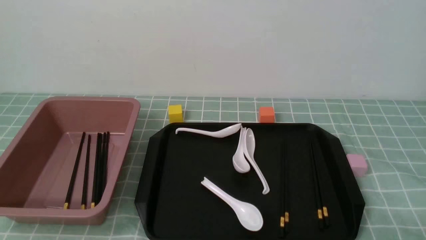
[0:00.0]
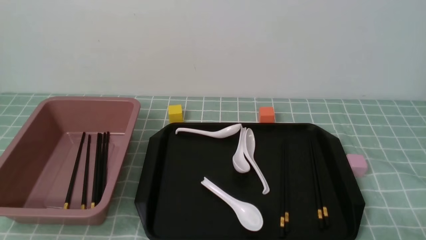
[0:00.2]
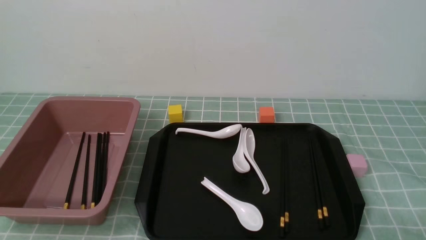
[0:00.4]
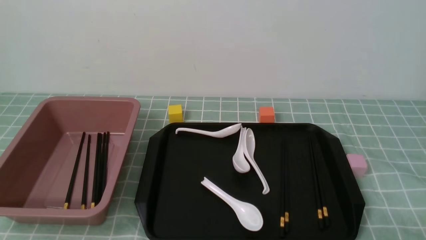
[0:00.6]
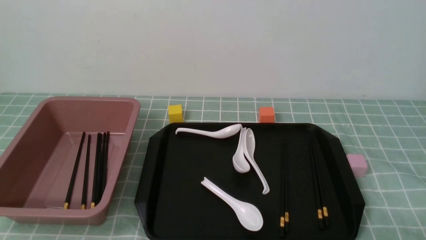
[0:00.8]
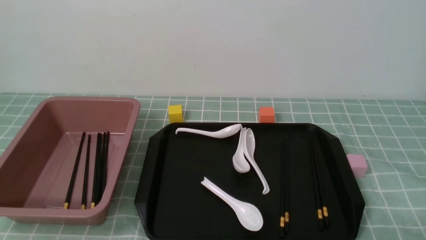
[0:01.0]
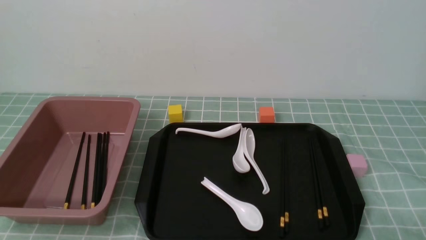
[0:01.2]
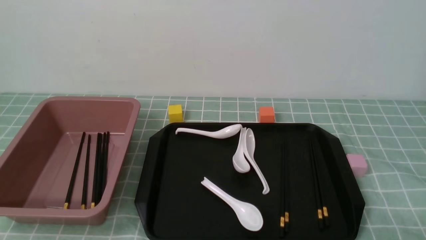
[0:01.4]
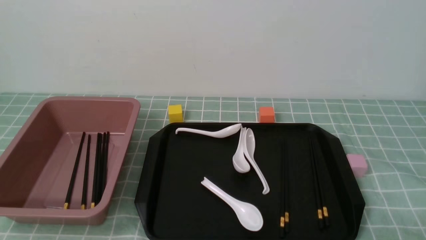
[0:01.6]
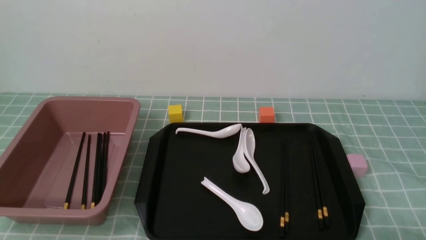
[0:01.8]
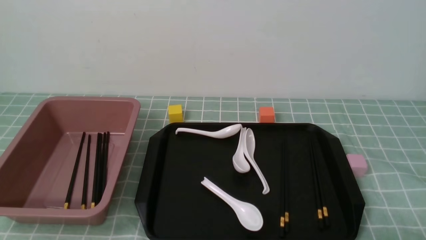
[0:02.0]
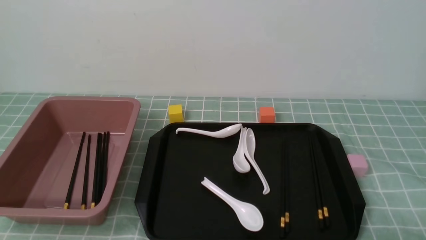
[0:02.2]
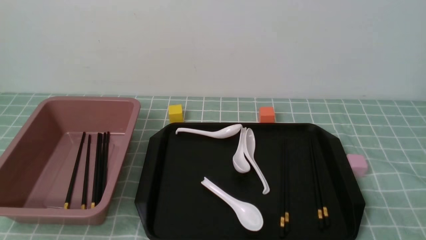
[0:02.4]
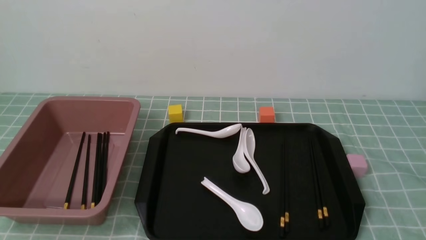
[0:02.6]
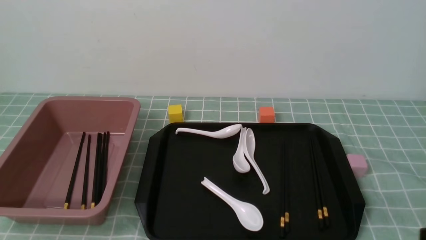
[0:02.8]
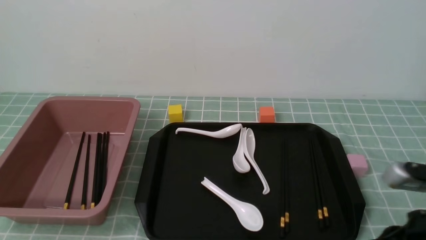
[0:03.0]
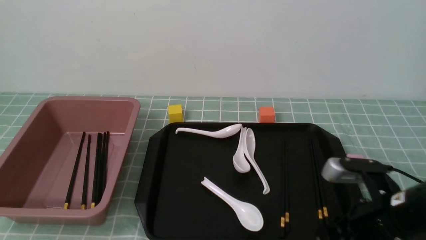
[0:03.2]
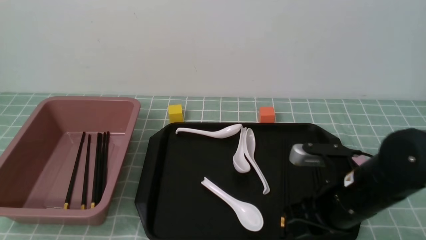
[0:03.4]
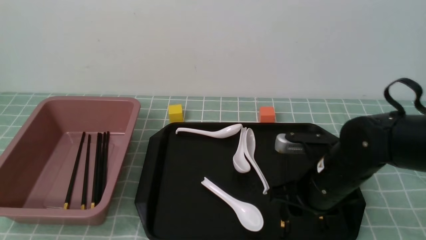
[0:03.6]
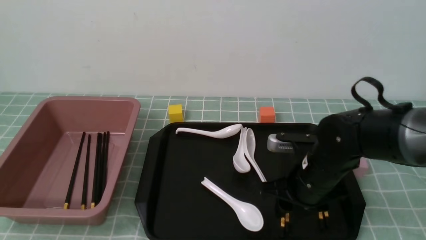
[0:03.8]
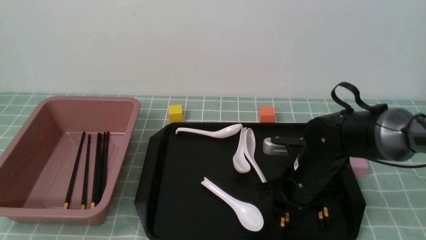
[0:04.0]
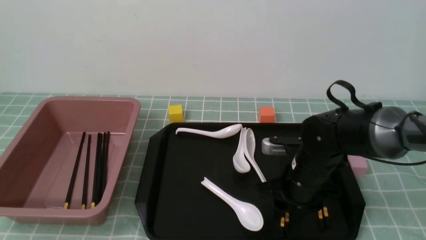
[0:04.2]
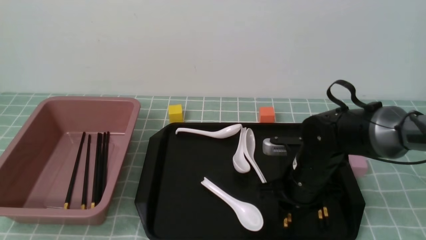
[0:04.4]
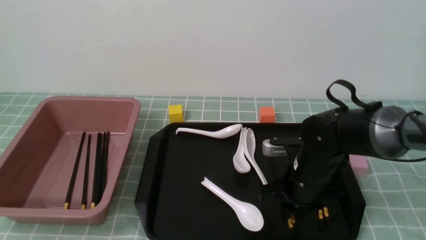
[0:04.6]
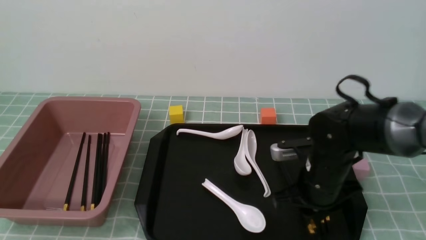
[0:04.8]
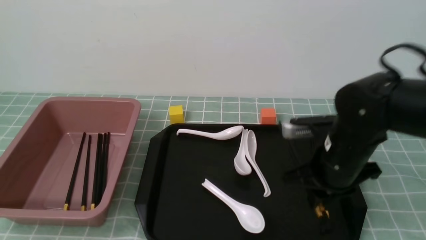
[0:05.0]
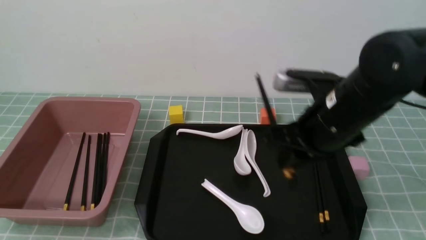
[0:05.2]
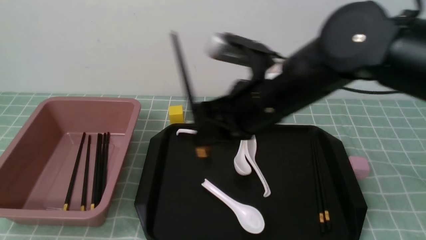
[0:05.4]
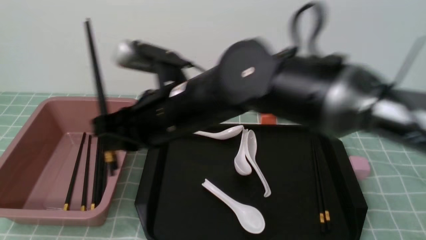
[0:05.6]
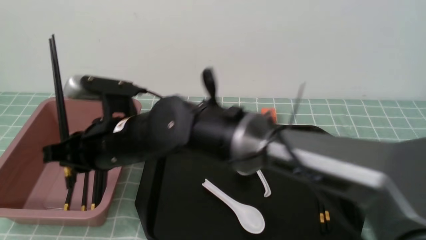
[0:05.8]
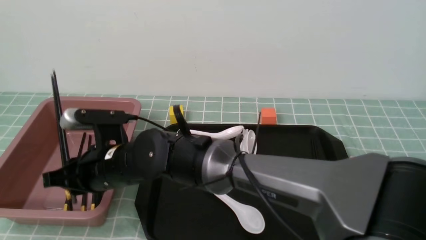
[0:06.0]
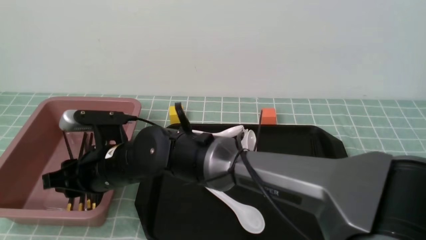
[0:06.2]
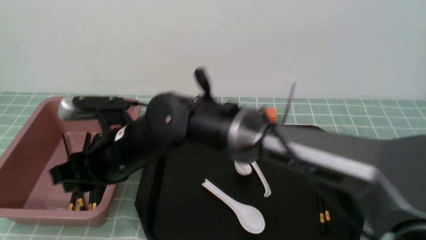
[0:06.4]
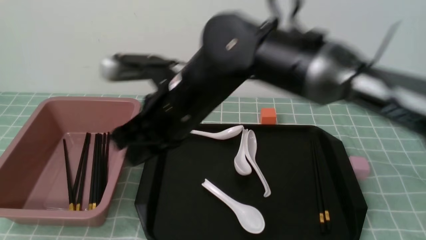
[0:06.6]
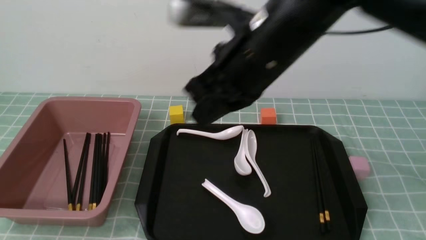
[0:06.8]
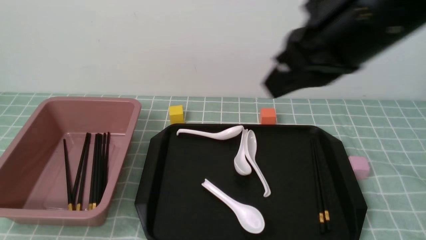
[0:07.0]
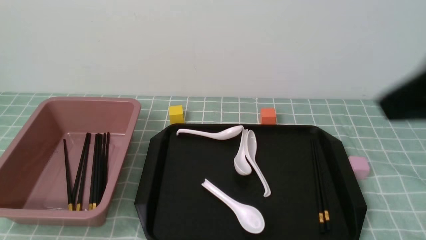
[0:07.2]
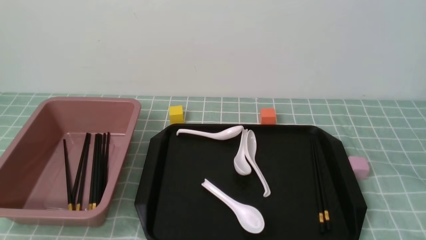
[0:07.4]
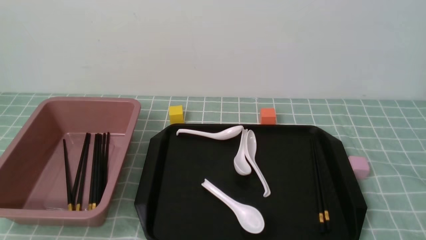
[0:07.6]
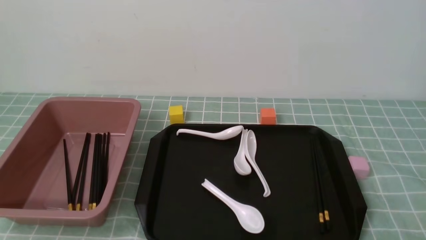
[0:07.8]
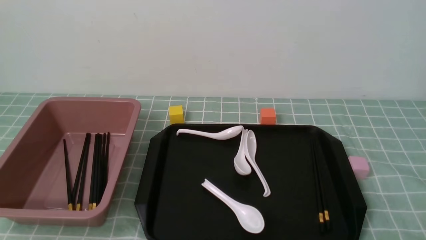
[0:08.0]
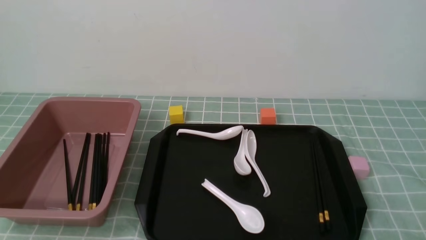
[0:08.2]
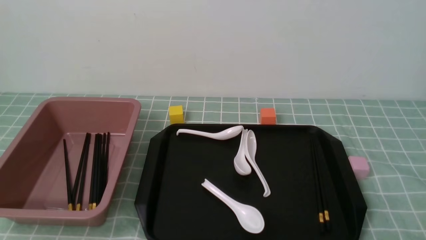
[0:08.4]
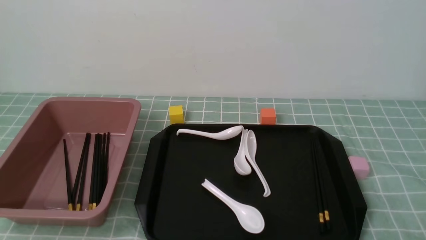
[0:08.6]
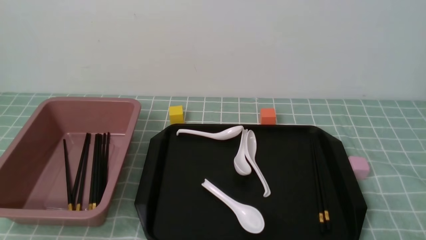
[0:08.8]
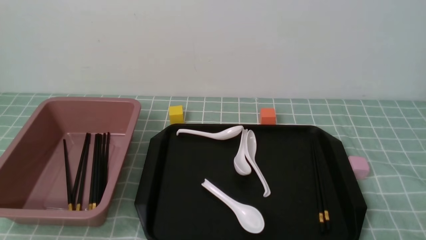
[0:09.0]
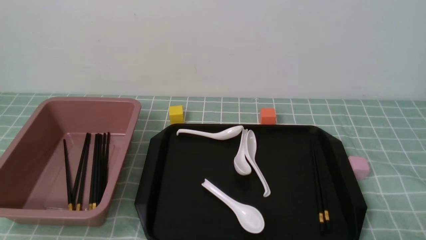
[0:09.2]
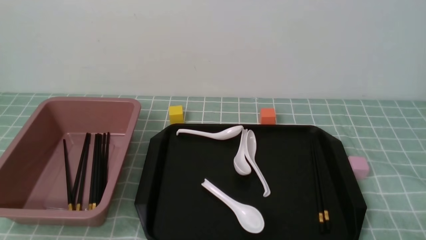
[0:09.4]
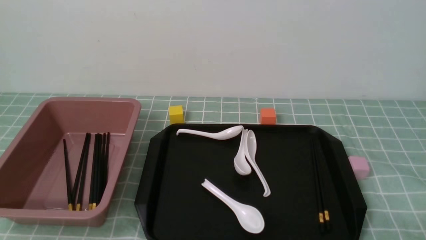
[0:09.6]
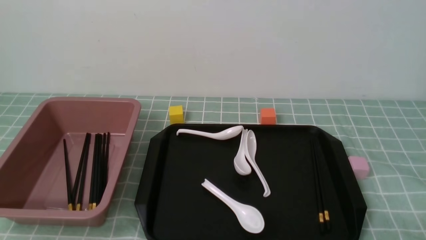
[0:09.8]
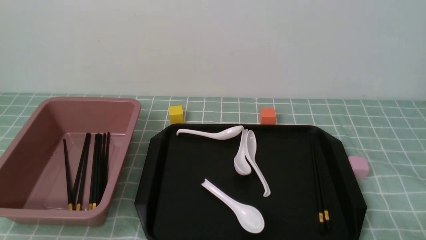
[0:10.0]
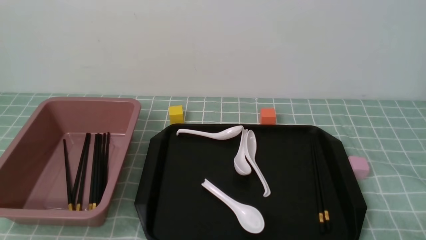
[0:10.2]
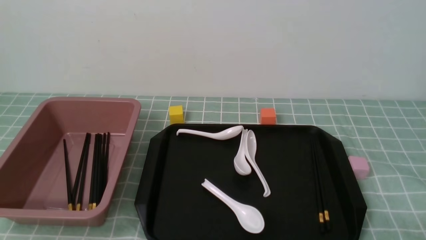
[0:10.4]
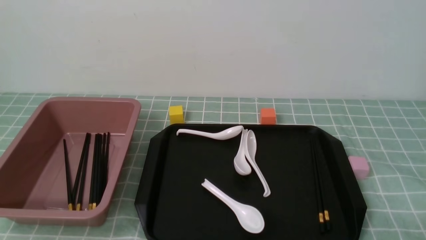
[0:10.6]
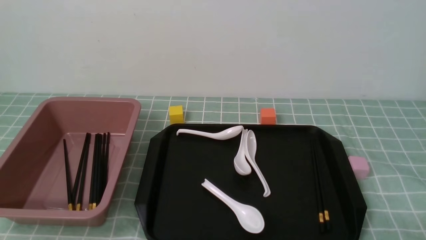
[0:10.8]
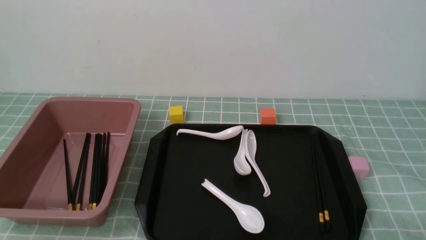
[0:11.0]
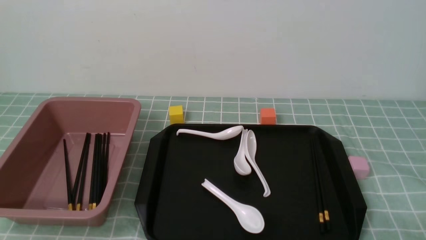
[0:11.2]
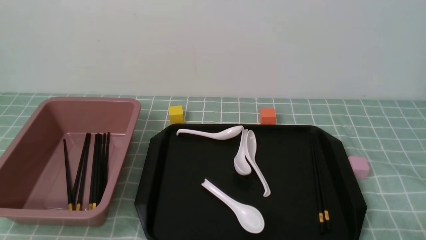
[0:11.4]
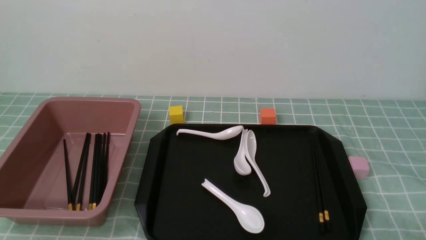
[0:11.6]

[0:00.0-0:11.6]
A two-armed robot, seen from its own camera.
Step, 0:00.0 to 0:05.2: use the right arm to grab a pair of chopsticks.
Step, 0:05.4 to 0:06.4: use the right arm to put the chopsticks into the lunch box.
0:00.0 to 0:01.4: Both grippers stay about where they are.
0:02.8 to 0:04.4: The right gripper shifts roughly 25 cm forward, to the left and downward, and opens up.
0:04.4 to 0:05.8: The right gripper moves to the left and upward, approximately 25 cm.
0:05.8 to 0:07.2: The right gripper travels to the right, upward and backward by about 40 cm, and closes up.
0:07.2 to 0:08.8: The right gripper goes roughly 20 cm downward and backward.
0:10.2 to 0:11.6: Neither gripper changes place.
